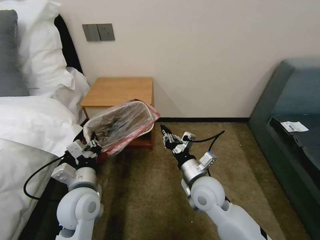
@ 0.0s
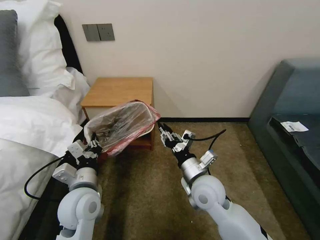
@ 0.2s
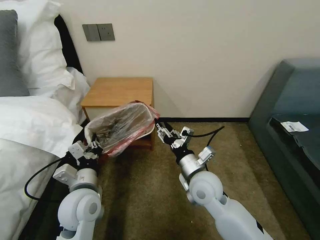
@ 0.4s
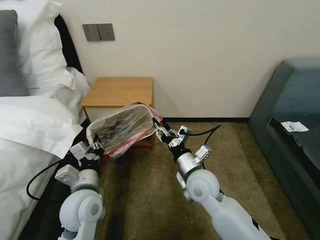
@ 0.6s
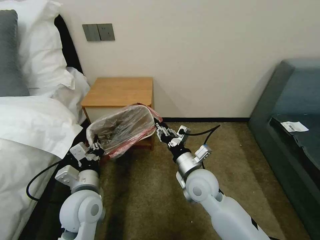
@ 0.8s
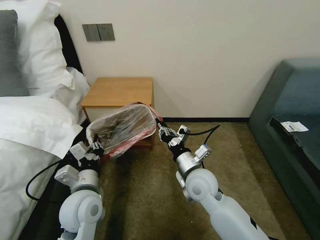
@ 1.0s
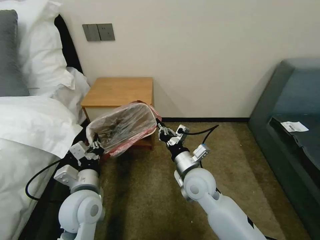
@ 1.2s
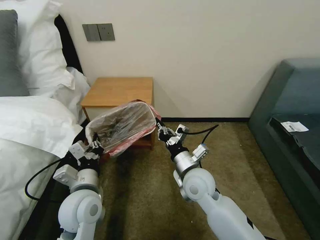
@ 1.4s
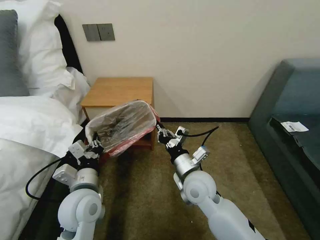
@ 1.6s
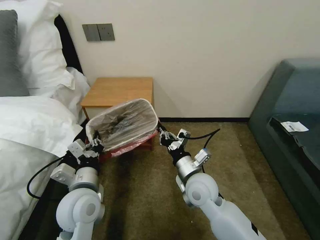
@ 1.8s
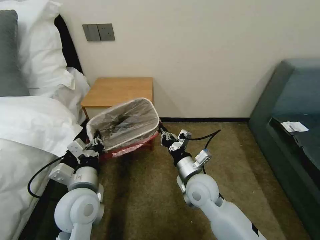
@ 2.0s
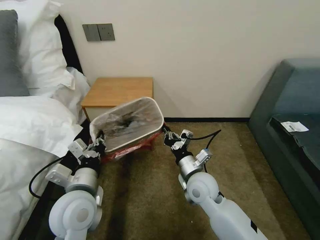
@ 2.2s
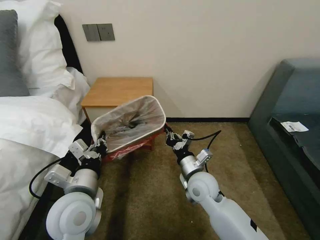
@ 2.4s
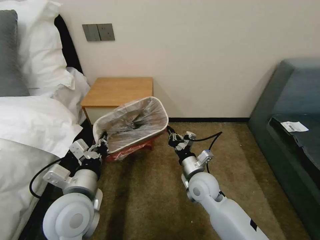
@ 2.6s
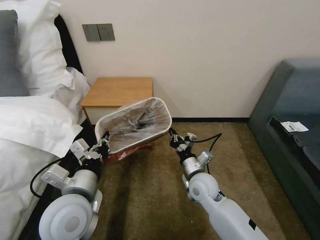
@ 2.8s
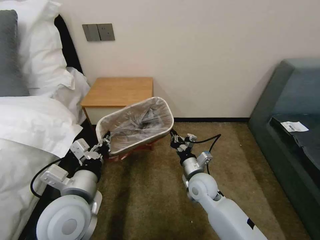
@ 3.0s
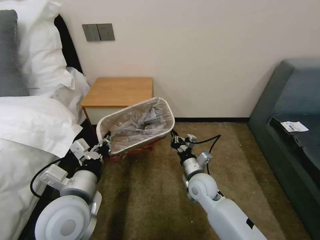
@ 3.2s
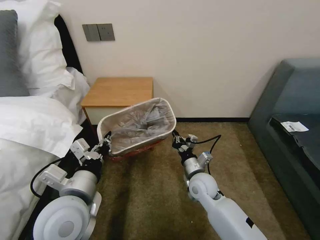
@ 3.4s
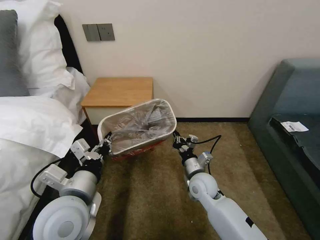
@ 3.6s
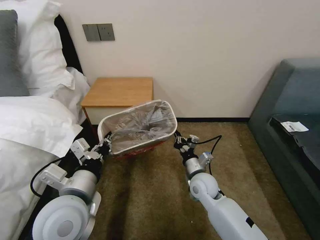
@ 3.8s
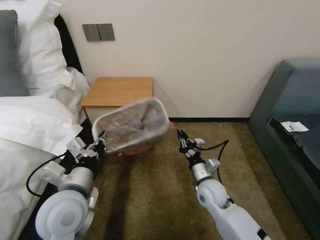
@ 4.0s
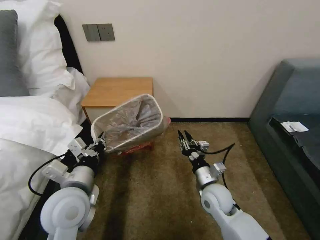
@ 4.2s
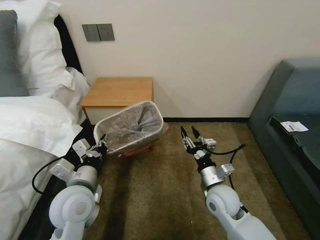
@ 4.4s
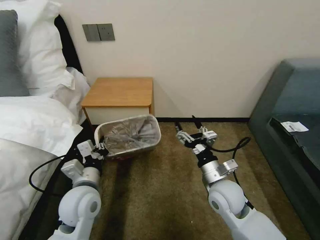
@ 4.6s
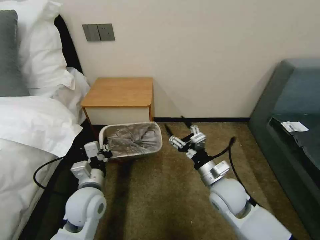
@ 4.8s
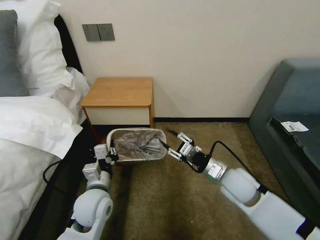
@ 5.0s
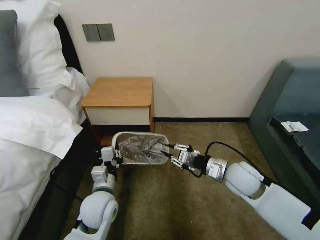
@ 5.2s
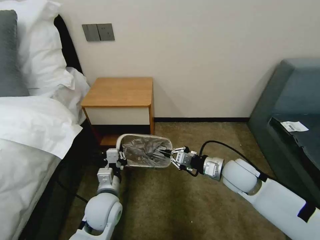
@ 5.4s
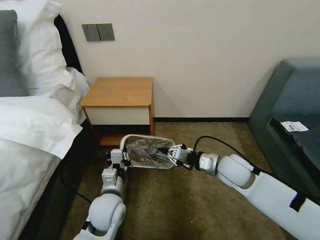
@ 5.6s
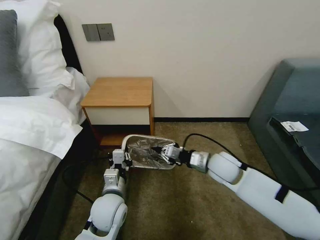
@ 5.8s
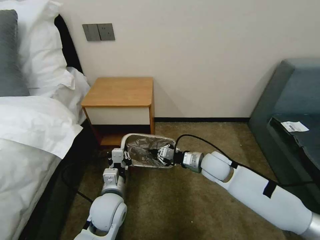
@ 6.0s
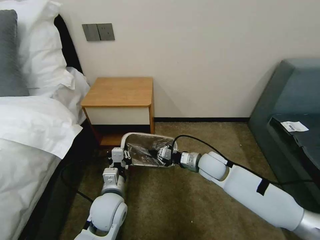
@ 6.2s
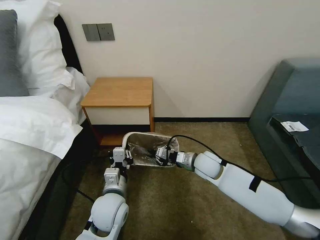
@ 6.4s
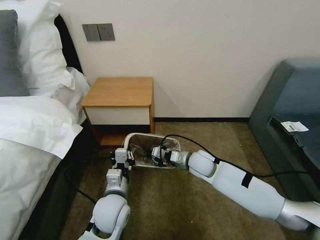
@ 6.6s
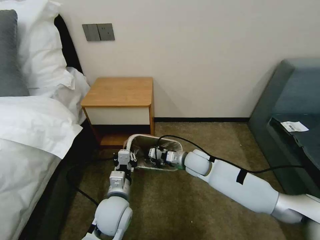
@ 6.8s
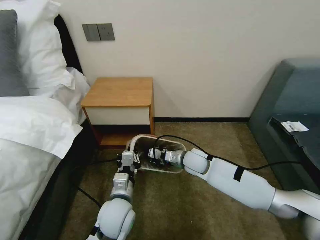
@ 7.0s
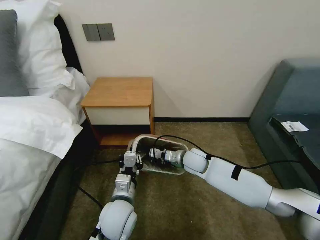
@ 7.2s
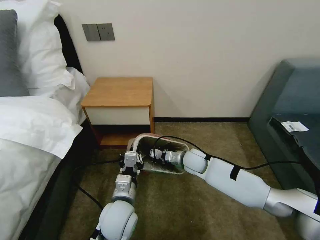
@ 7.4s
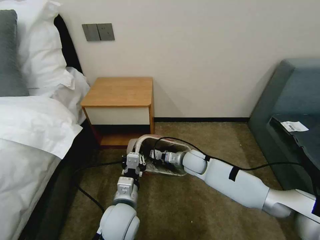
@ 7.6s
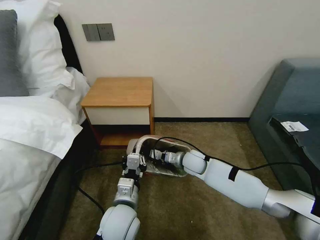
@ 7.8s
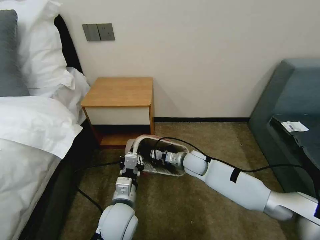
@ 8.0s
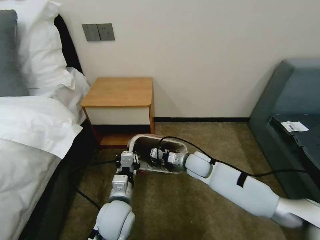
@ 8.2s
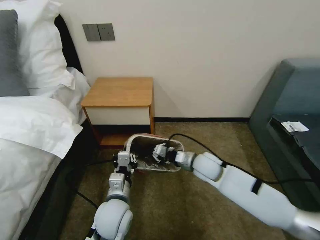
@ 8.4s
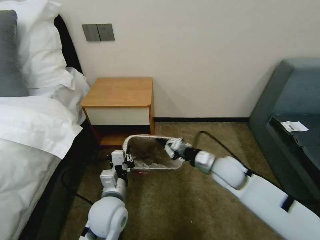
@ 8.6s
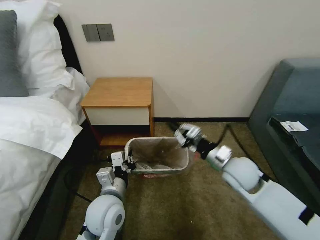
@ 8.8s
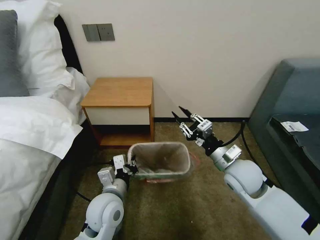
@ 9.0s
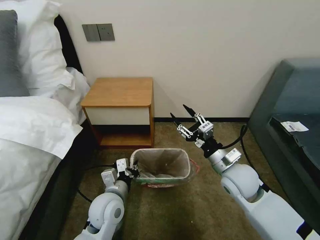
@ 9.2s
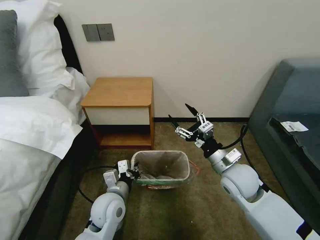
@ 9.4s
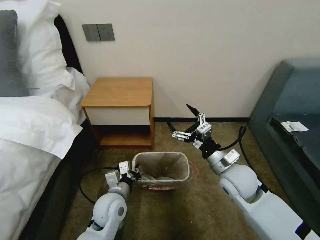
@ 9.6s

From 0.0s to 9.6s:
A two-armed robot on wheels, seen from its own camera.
Task of the whole recording: Pick up the garbage bag from the table and place it over the trash can.
From 0.0s to 1.6s: The right gripper opens, then closes again.
From 1.6s to 3.2s: The right gripper shifts about 10 cm downward; the left gripper is displaced upward by about 5 cm.
From 3.2s to 4.8s: The right gripper goes roughly 10 cm upward and to the right, and opens its fingers; the left gripper goes roughly 10 cm downward and forward.
From 4.8s to 6.4s: The right gripper moves forward, approximately 10 cm, and closes its fingers; the left gripper moves to the right, approximately 5 cm.
From 6.4s to 8.0s: The right gripper shifts by approximately 5 cm.
From 8.0s to 9.6s: The right gripper moves backward, upward and to the right, some 20 cm, and opens. The left gripper shifts by approximately 5 cm.

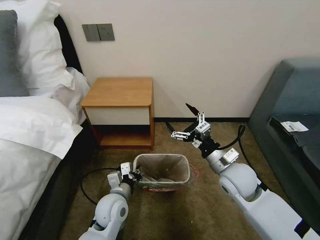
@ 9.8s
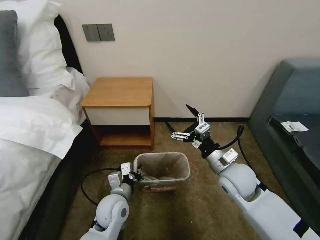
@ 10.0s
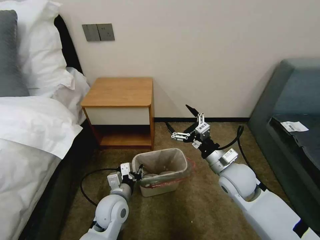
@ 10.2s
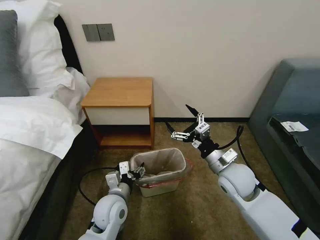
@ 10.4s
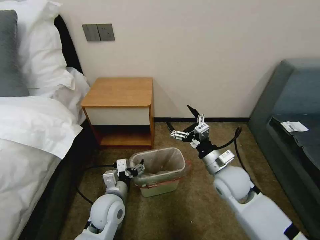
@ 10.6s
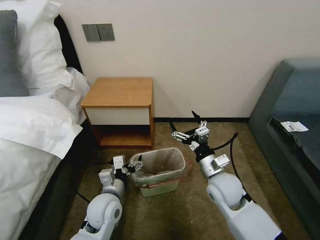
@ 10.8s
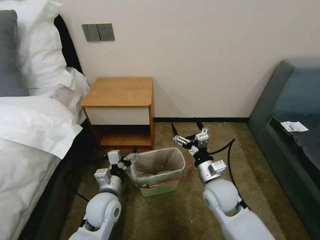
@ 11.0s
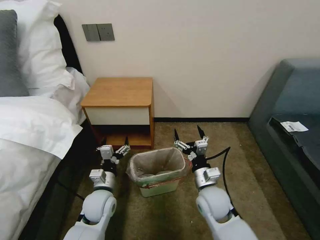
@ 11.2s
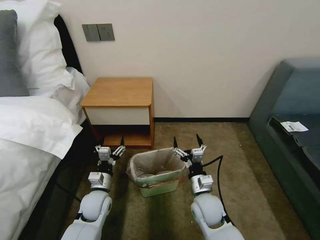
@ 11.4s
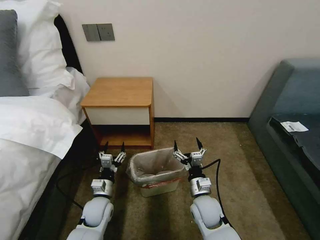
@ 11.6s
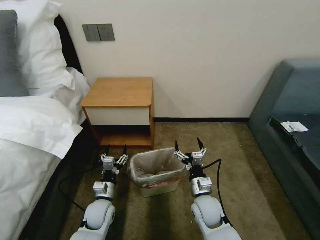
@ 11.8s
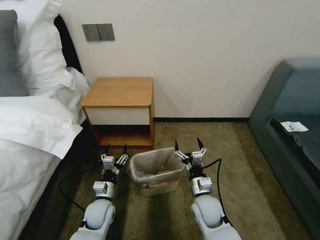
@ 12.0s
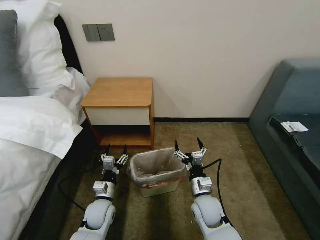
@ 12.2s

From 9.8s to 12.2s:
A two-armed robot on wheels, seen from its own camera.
Task of the whole recording: Pick up the garbage bag from the table and place it over the trash can.
From 9.8s to 11.0s: The left gripper opens up; the right gripper is displaced downward by approximately 5 cm.
From 11.0s to 12.2s: The two grippers go some 10 cm downward.

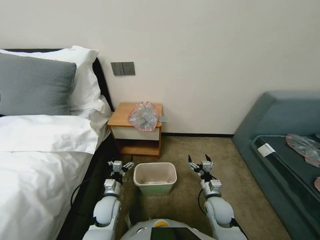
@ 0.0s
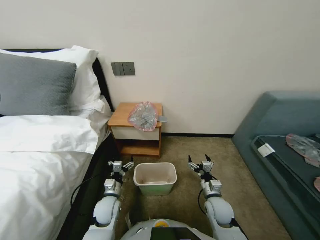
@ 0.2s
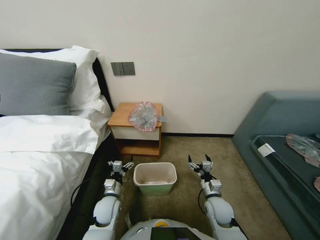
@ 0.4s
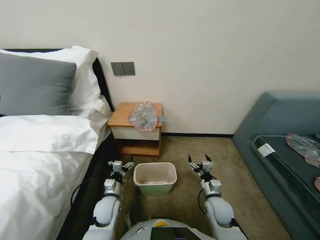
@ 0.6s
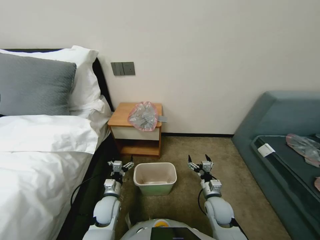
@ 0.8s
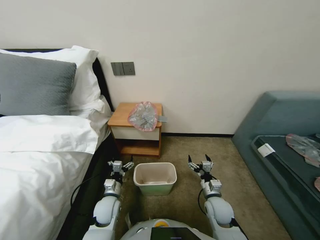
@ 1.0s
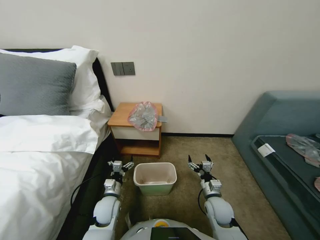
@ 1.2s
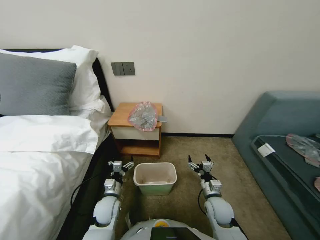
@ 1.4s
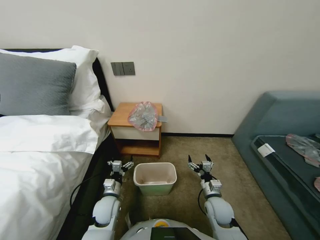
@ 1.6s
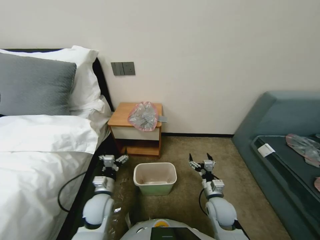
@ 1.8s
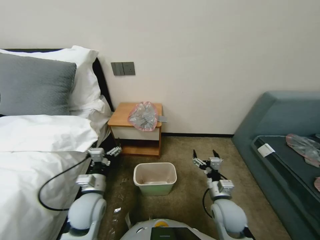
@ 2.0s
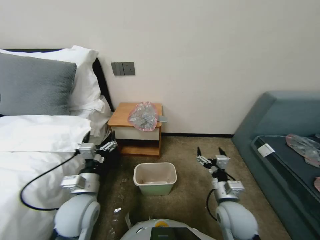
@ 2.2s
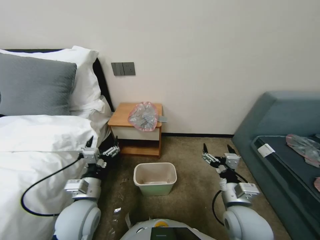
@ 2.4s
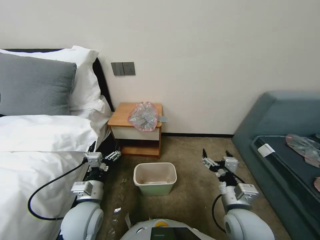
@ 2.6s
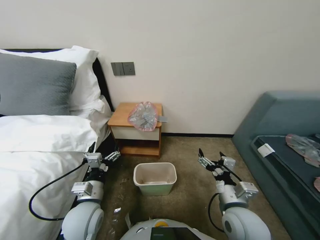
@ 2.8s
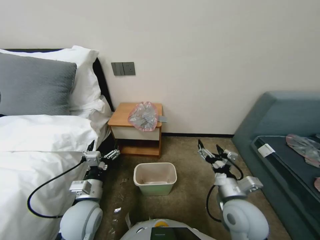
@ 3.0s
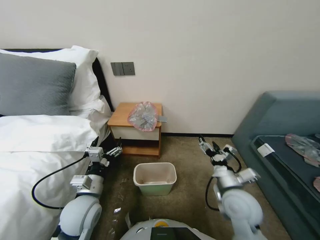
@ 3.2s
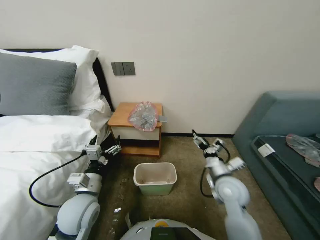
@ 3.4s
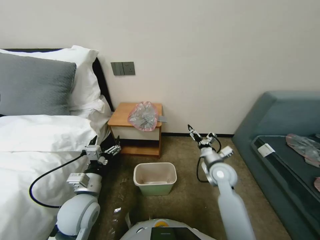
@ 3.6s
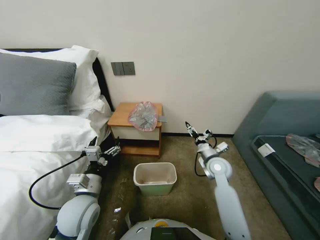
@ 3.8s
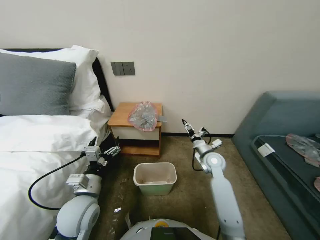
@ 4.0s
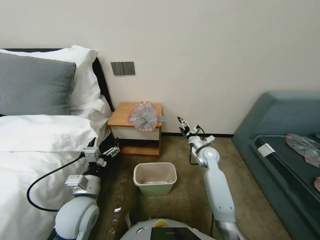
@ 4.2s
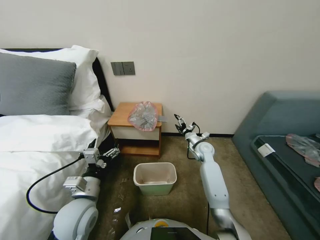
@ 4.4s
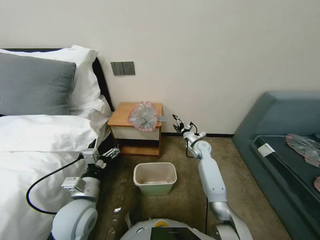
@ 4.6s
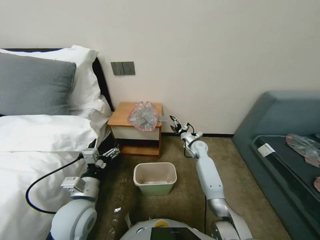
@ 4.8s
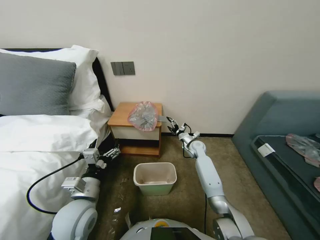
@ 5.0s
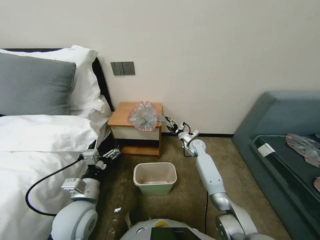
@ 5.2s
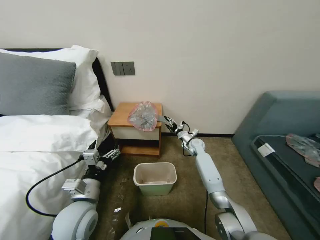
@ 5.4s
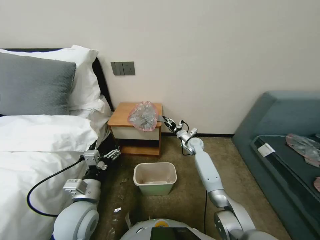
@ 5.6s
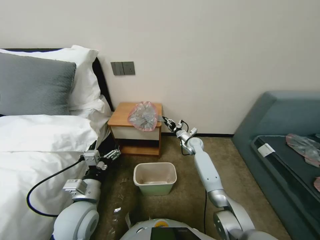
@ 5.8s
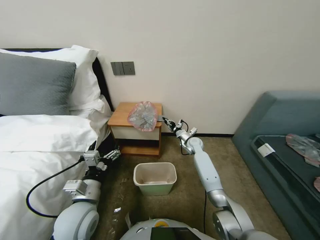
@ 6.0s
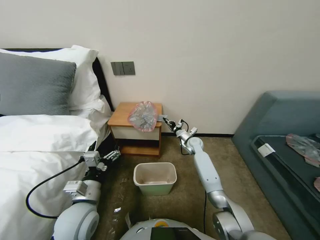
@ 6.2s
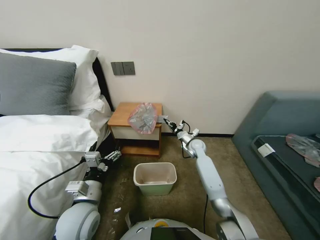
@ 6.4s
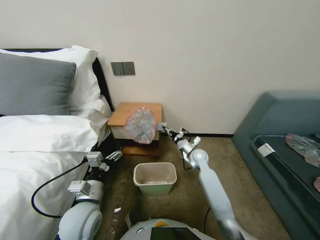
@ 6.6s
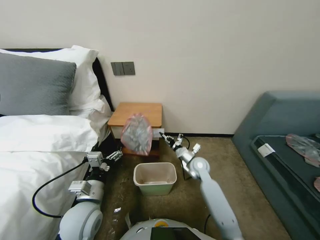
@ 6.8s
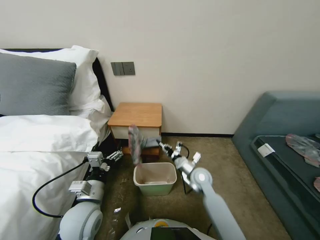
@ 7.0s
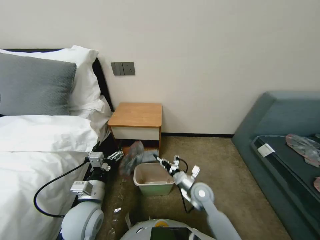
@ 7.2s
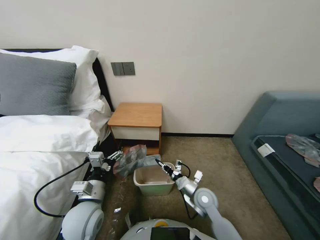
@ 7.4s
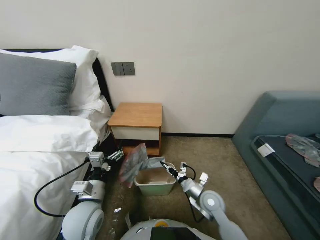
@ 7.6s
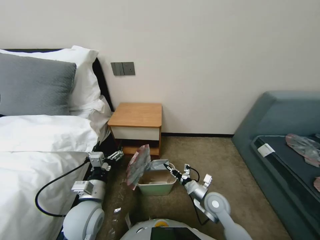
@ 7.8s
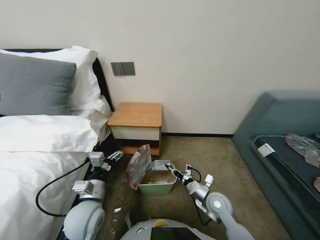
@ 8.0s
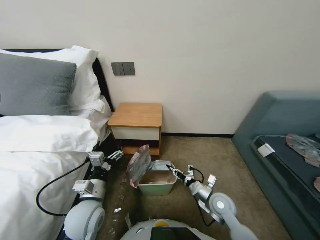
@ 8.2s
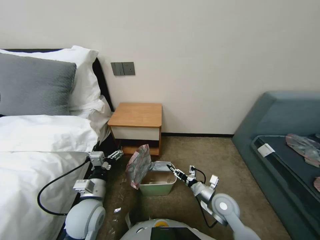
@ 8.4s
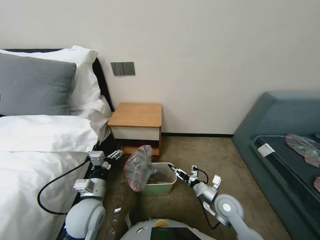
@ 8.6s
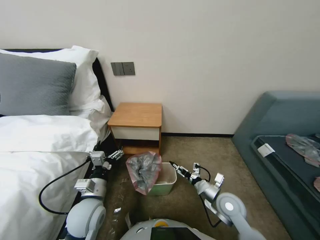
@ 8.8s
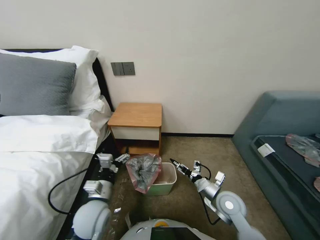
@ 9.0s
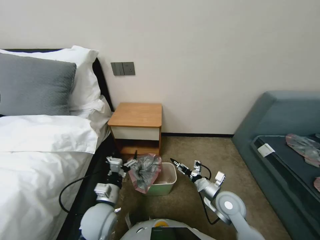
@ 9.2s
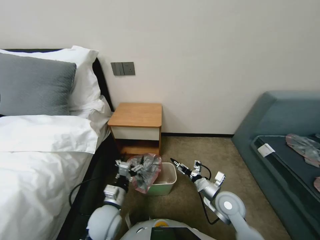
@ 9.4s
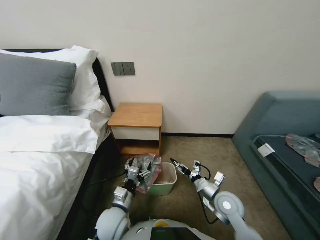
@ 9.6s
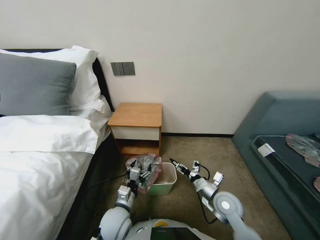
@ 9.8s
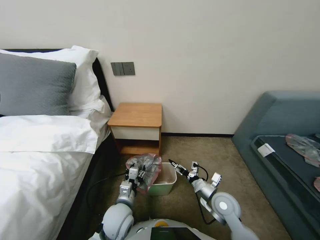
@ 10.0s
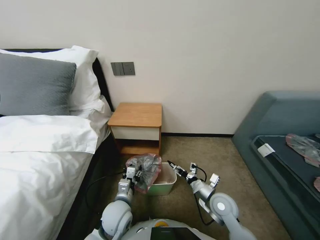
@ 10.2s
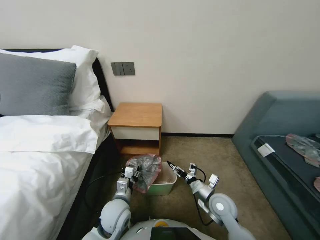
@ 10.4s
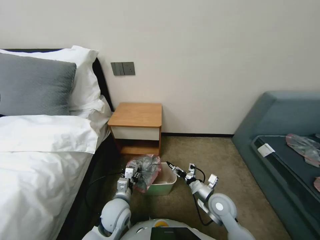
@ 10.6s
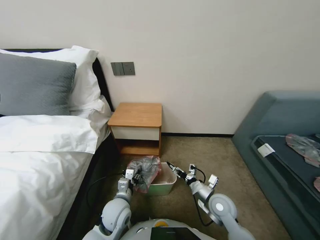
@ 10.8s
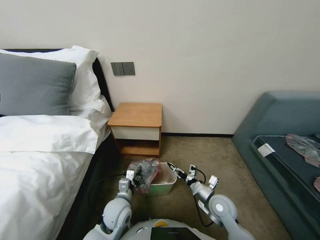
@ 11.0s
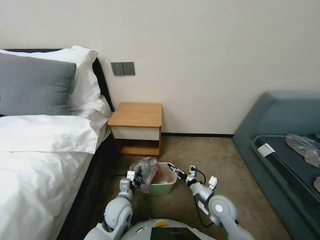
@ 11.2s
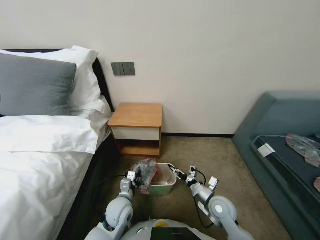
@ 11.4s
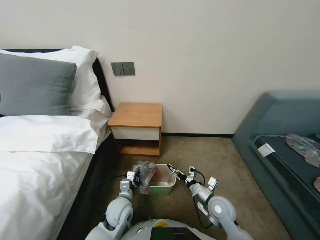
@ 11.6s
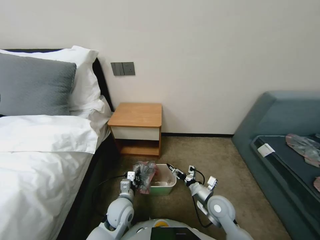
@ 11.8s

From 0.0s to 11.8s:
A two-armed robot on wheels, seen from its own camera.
Task of the whole recording: Pick up the garbage bag from the table and place it over the trash can.
From 1.4s to 3.0s: Both grippers move upward, about 15 cm.
From 3.0s to 4.4s: The right gripper travels forward by about 30 cm.
From 4.4s to 6.0s: The right gripper goes approximately 10 cm forward, and closes up.
From 6.0s to 7.4s: The right gripper goes roughly 25 cm backward.
From 7.4s to 8.8s: The right gripper moves to the right, approximately 10 cm, and opens.
From 8.8s to 10.4s: The left gripper goes approximately 10 cm to the right and downward, and closes up.
From 10.4s to 11.8s: The left gripper closes.
